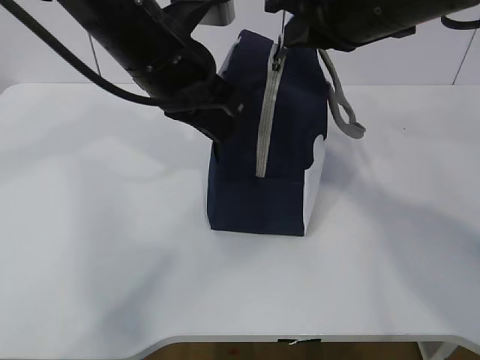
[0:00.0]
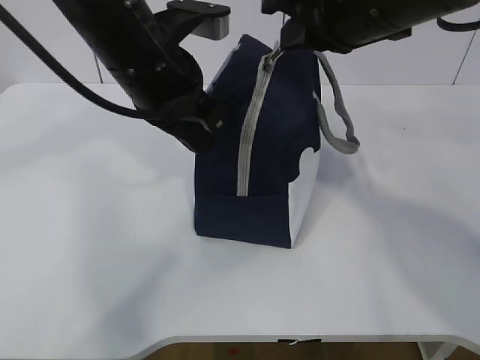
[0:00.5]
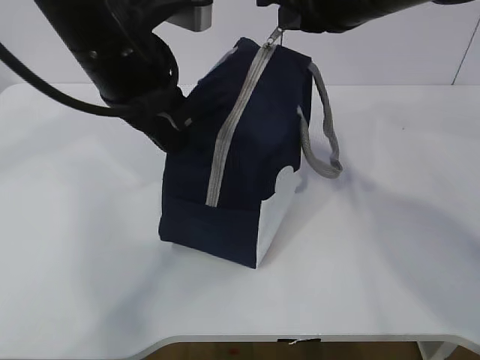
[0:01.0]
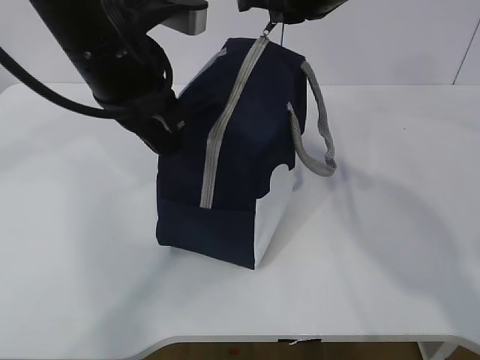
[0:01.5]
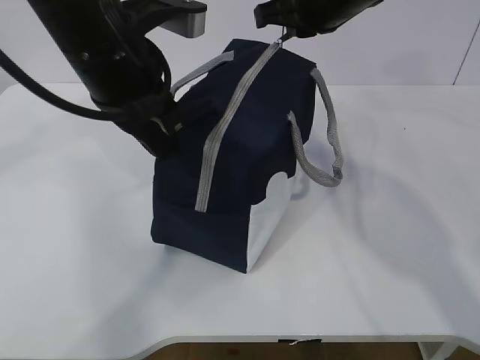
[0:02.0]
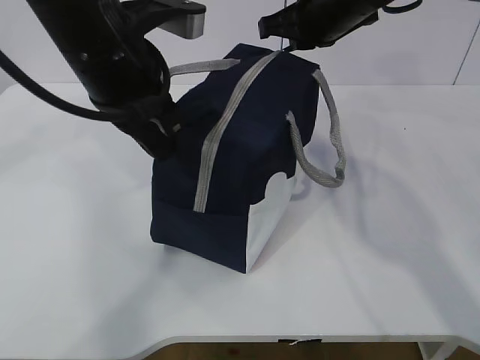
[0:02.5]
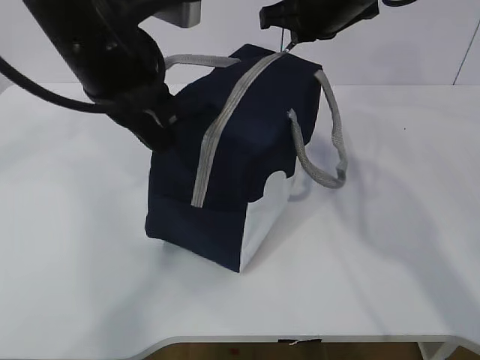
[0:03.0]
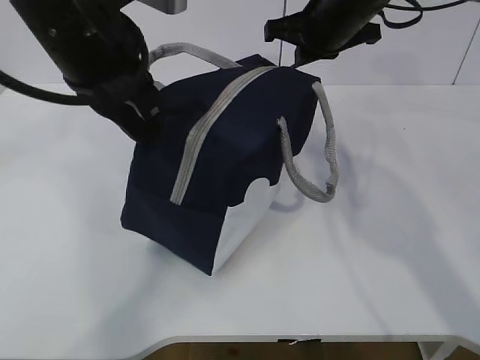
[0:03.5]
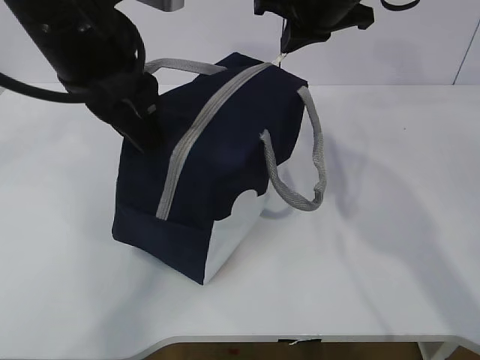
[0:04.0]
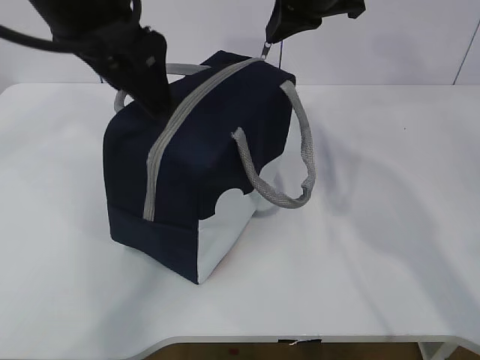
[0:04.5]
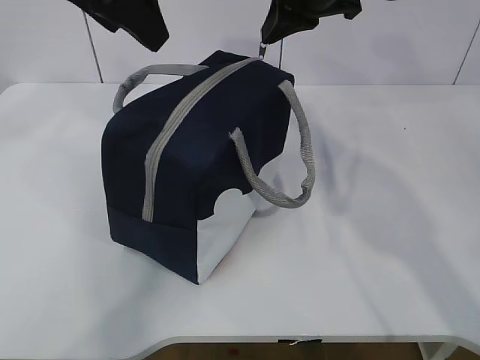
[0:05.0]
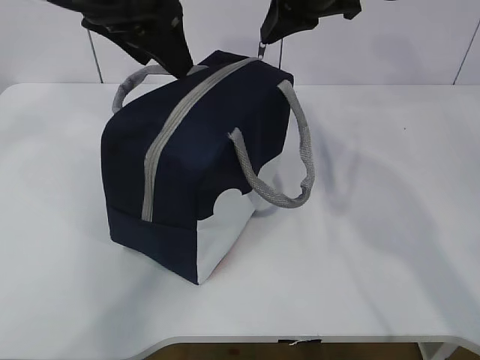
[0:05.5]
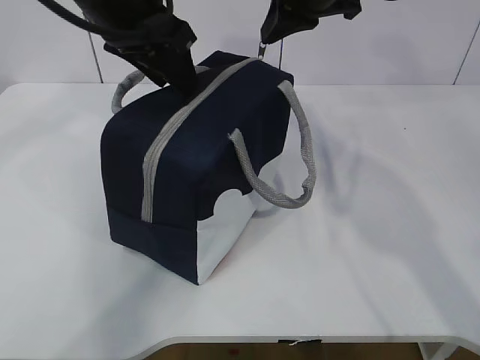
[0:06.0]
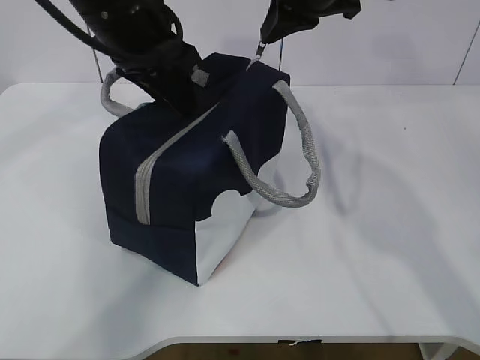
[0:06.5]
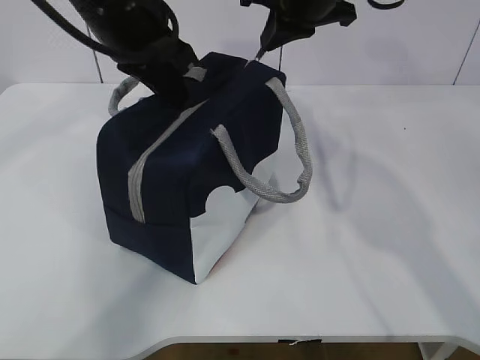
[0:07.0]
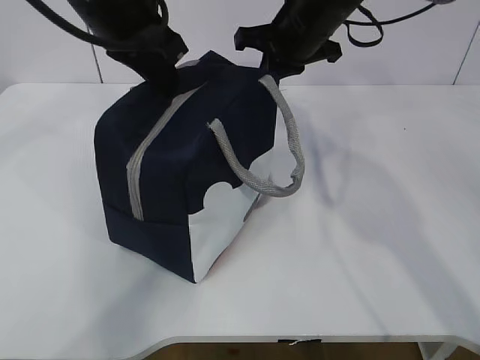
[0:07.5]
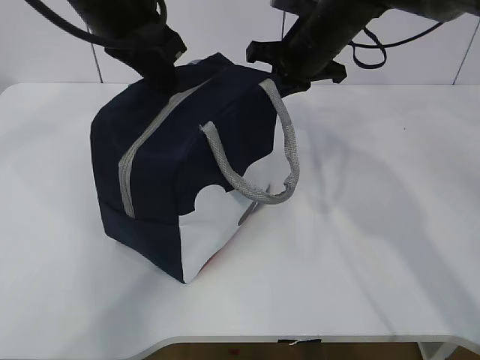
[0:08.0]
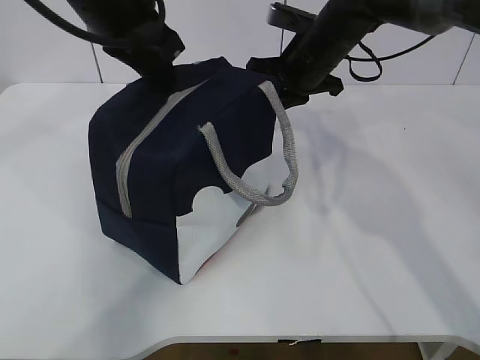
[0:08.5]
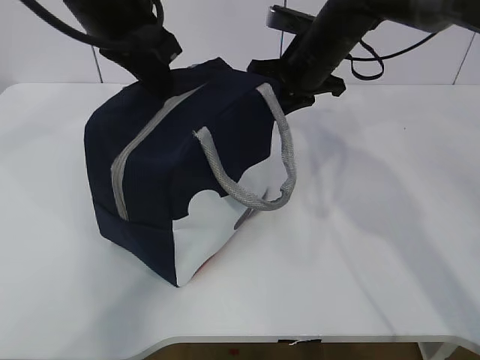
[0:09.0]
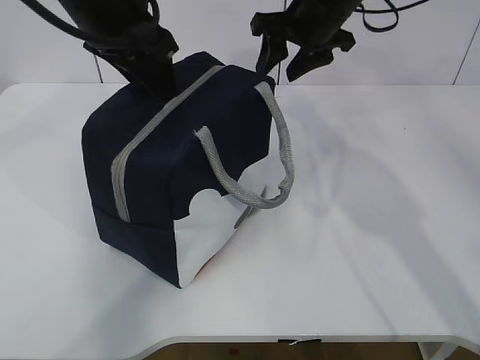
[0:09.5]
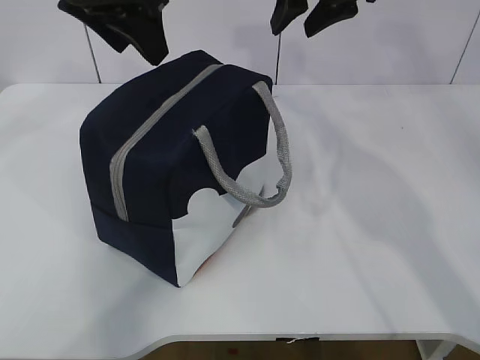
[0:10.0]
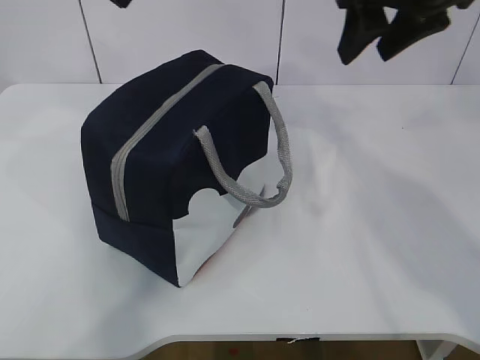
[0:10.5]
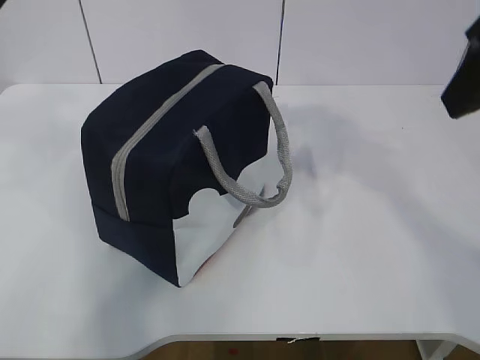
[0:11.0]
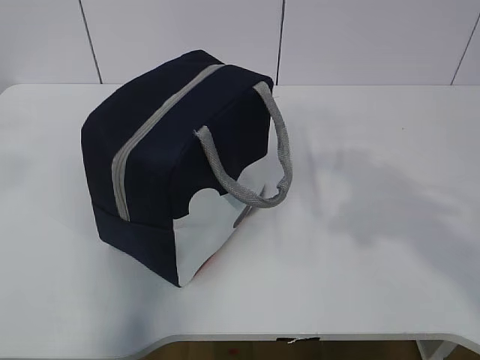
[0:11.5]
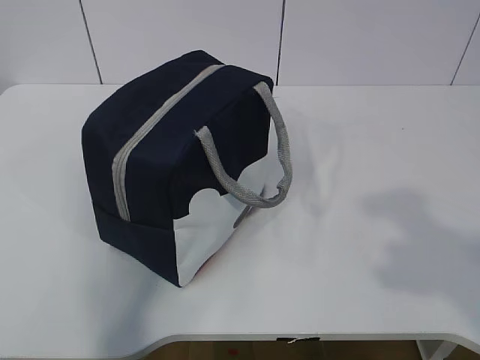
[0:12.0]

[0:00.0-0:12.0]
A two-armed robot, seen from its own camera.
0:00.0 to 0:02.0: The right gripper shifts about 10 cm forward.
0:02.0 to 0:04.0: The left gripper opens up.
0:04.0 to 0:06.0: The left gripper travels forward by some 5 cm.
0:06.0 to 0:08.0: The right gripper is displaced downward by approximately 10 cm; the left gripper closes up.
0:08.0 to 0:10.0: The right gripper travels upward by about 10 cm, and opens its fingers. Meanwhile the left gripper opens its fingers.
0:10.0 to 0:12.0: The right gripper is displaced backward by some 40 cm; the left gripper moves backward and to the left, about 35 cm, and closes its fingers.

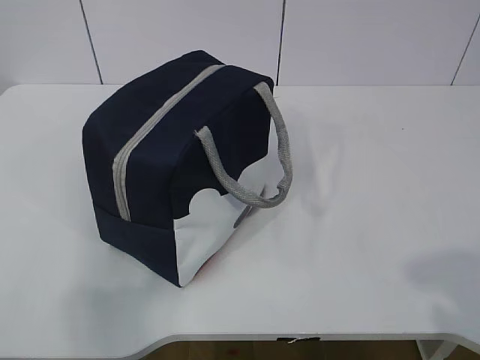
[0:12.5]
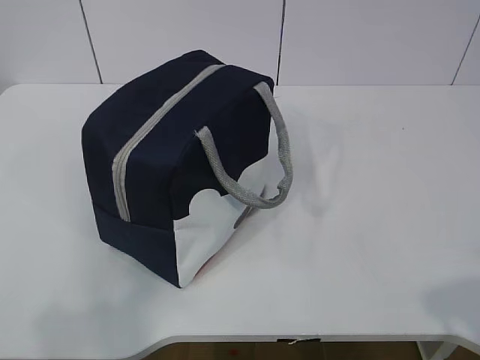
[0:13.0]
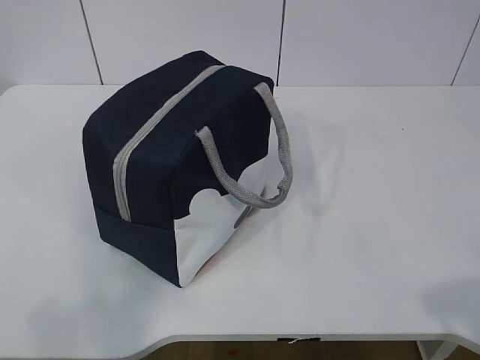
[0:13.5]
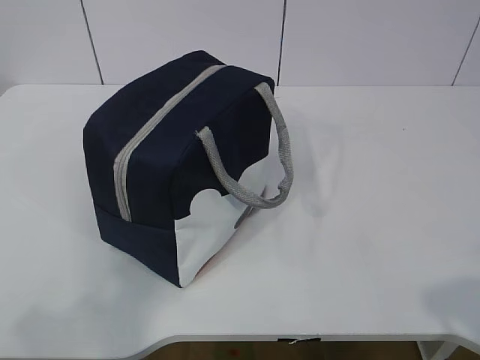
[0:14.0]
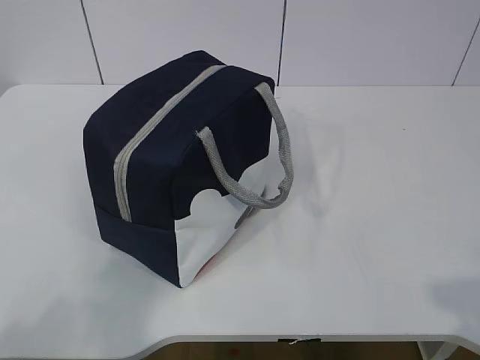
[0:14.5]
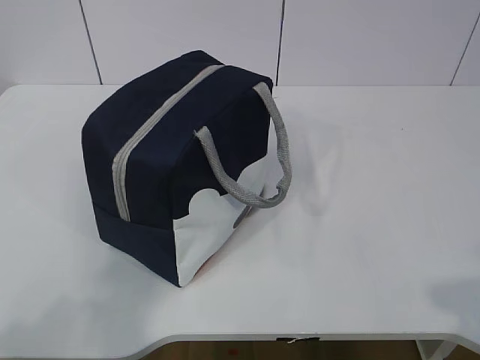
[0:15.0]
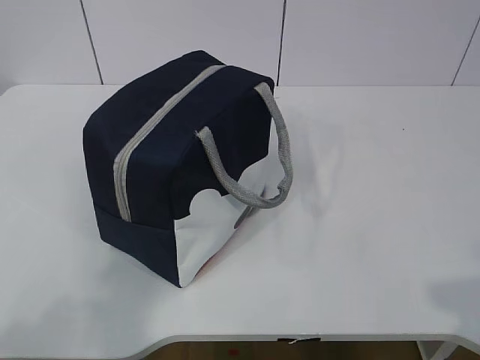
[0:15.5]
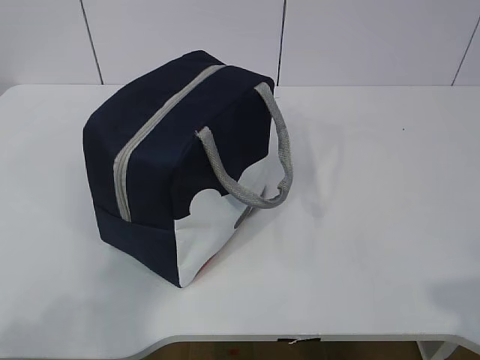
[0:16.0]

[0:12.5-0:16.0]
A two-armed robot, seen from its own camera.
0:14.5 to 0:16.0: Both grippers stay about where they are.

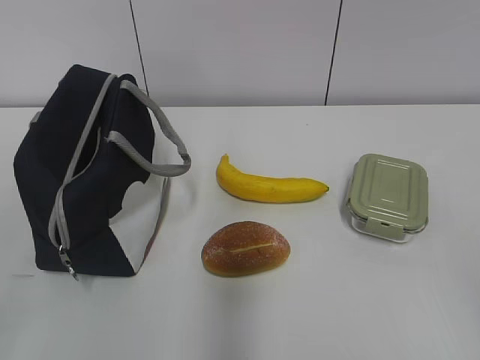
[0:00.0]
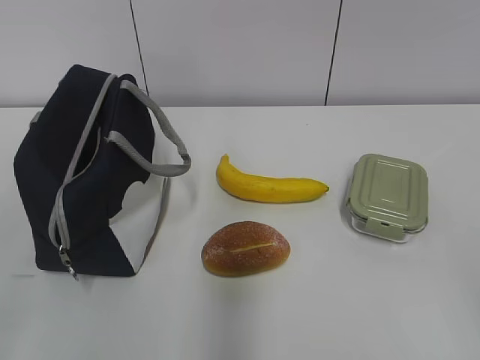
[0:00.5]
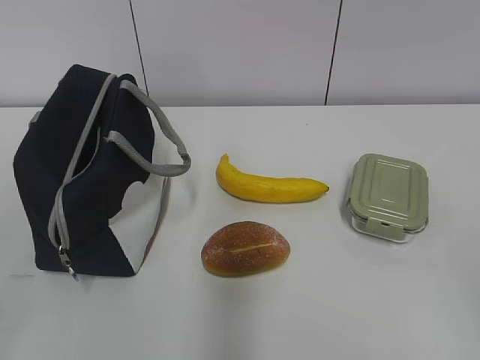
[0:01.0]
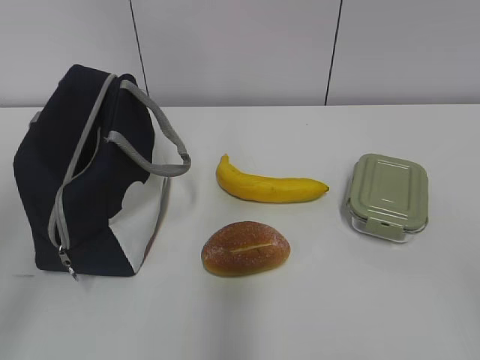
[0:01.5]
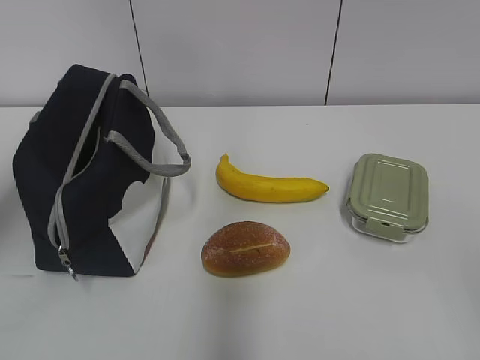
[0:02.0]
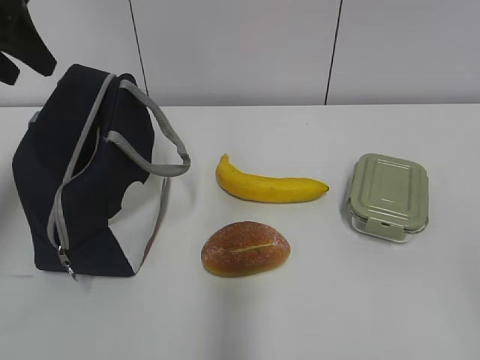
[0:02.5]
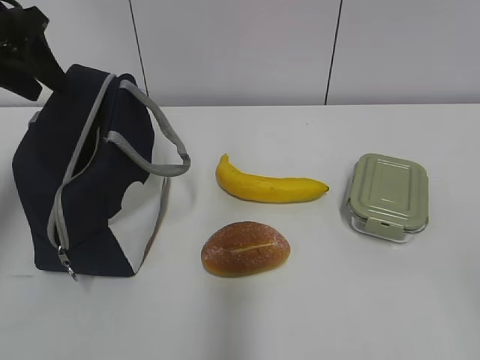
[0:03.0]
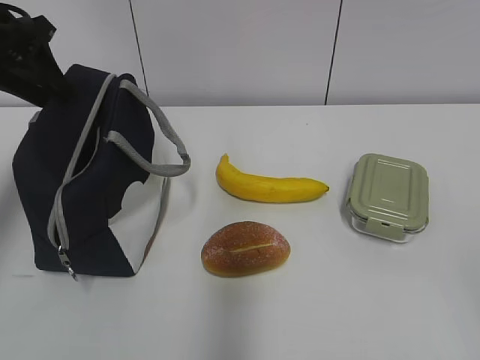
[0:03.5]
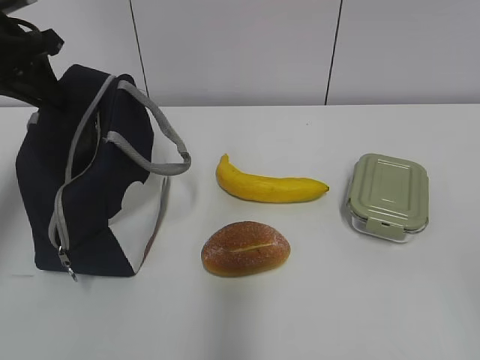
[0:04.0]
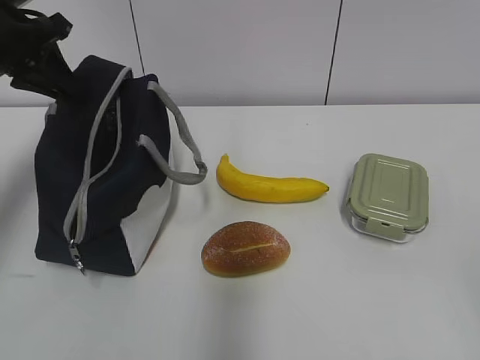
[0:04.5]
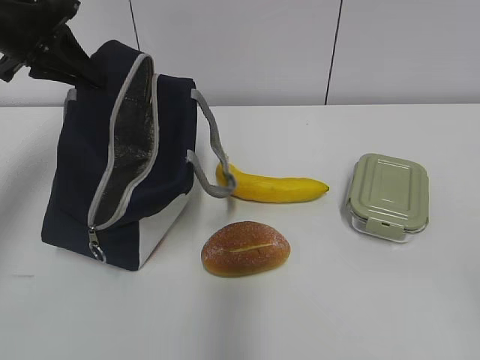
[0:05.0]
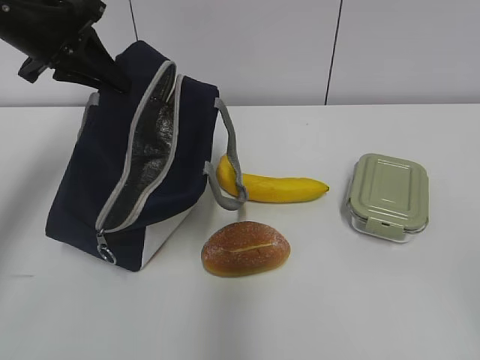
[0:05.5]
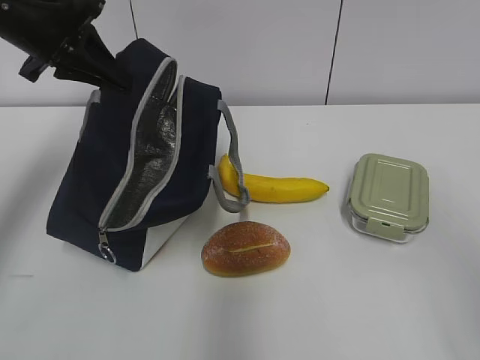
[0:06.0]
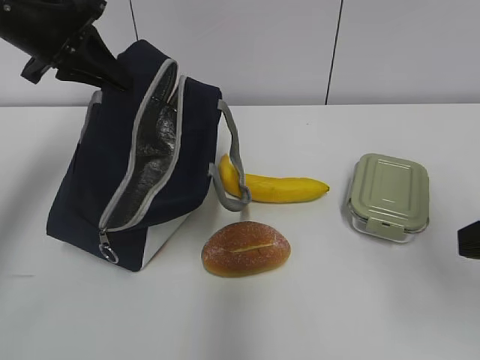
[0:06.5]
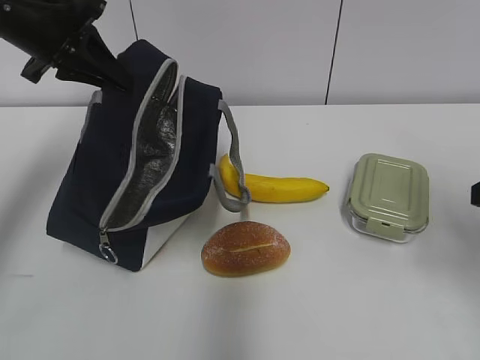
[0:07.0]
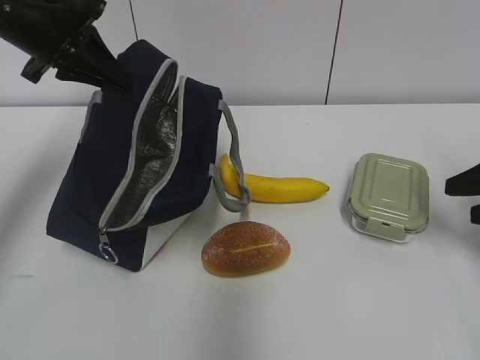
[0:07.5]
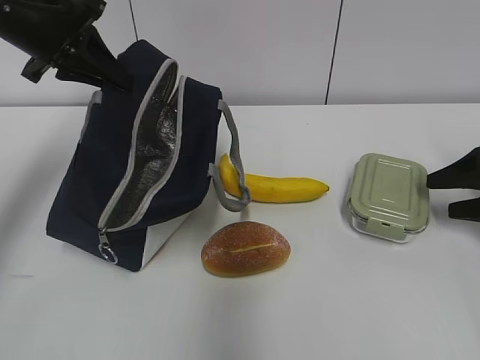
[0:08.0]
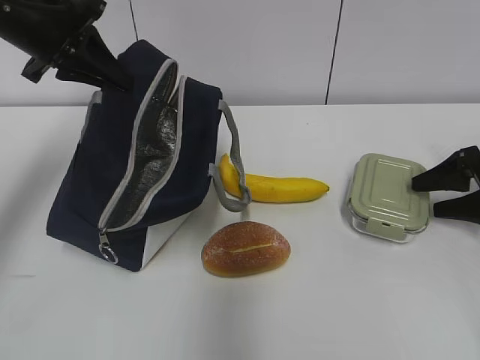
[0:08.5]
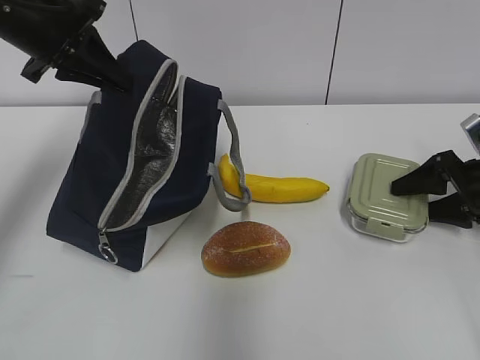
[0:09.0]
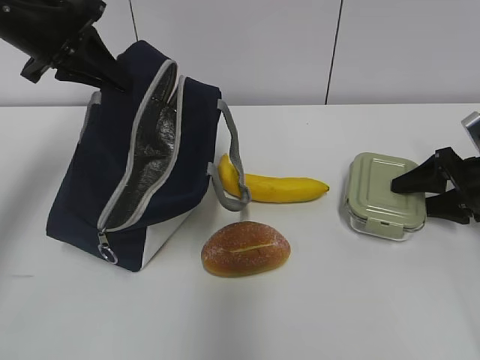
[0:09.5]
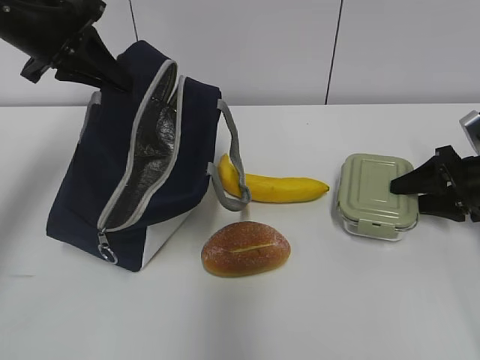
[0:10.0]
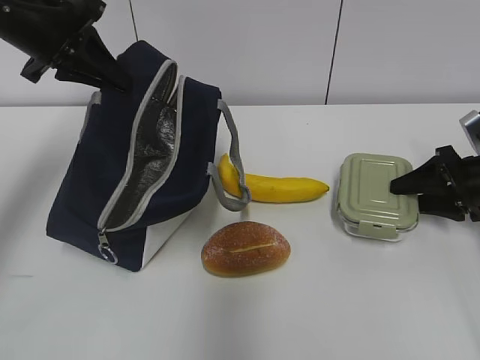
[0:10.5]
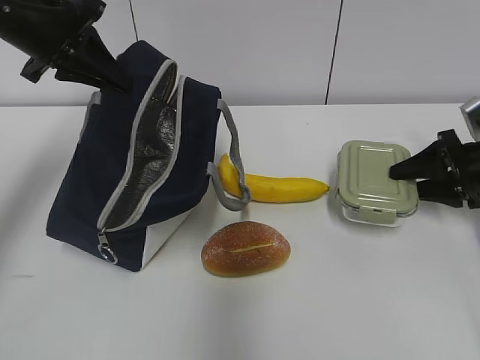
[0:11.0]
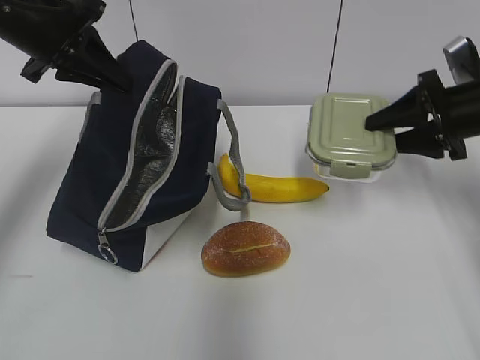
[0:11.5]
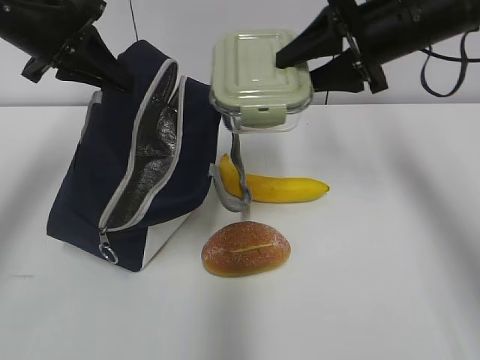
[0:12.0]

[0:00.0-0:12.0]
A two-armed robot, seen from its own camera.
0:02.0 to 0:04.0: The left gripper shifts about 20 cm forward and downward, and closes.
0:04.0 to 0:06.0: The left gripper heads to the right, covering some 5 cm, while the right gripper shifts approximately 5 cm forward.
0:06.0 to 0:08.0: The right gripper is displaced forward and downward by roughly 30 cm.
0:08.0 to 0:10.0: The right gripper shifts by approximately 5 cm.
0:10.0 to 0:12.0: The right gripper goes roughly 25 cm upward and to the left.
